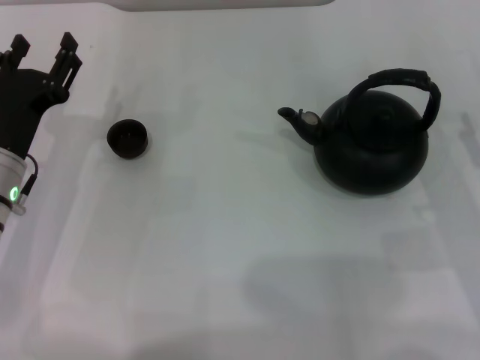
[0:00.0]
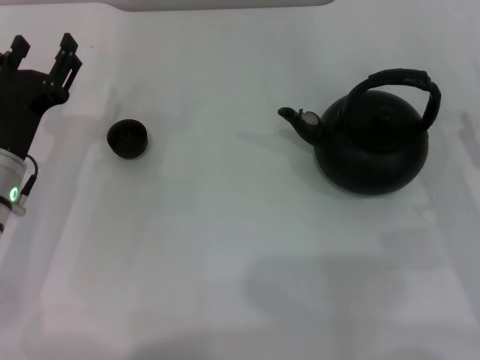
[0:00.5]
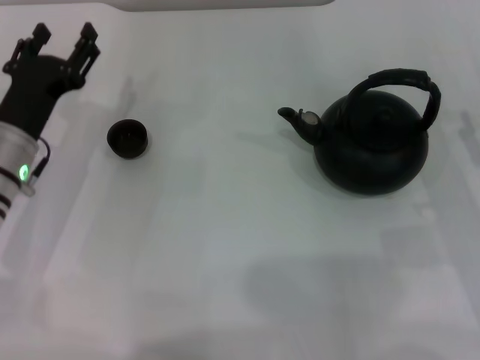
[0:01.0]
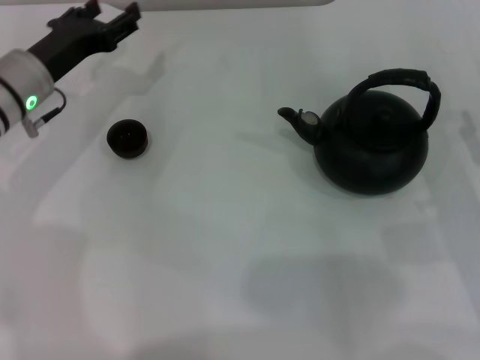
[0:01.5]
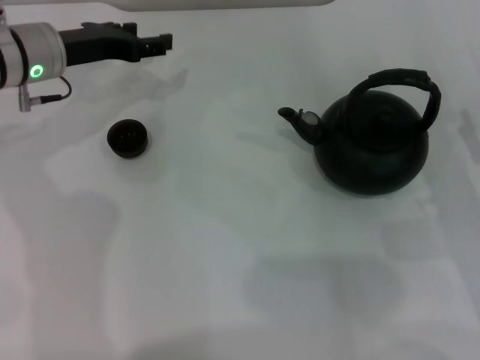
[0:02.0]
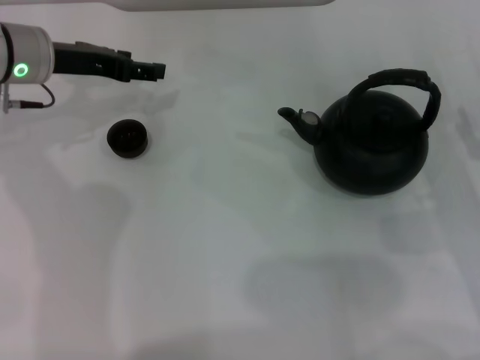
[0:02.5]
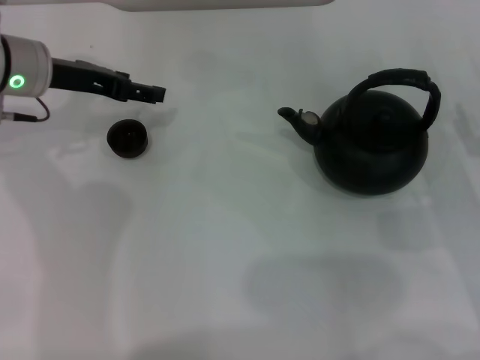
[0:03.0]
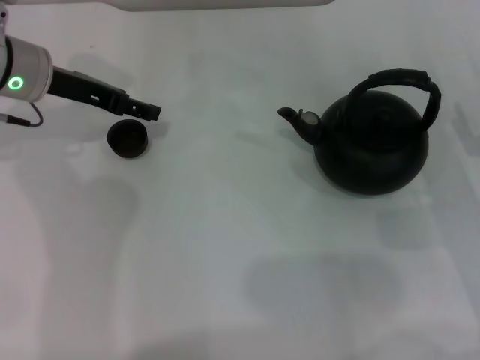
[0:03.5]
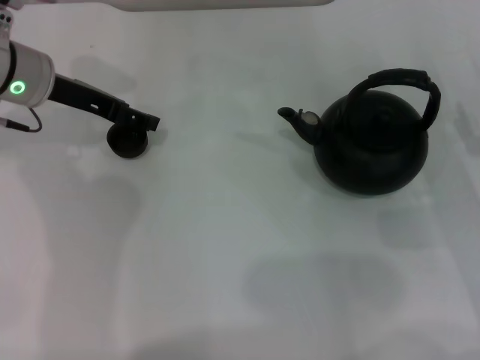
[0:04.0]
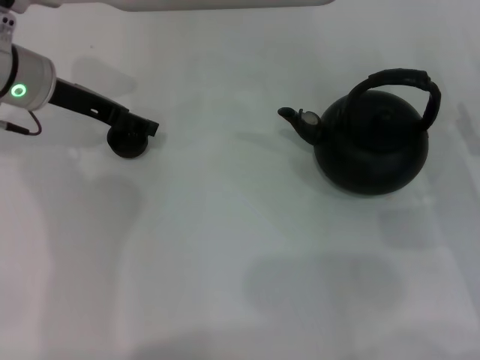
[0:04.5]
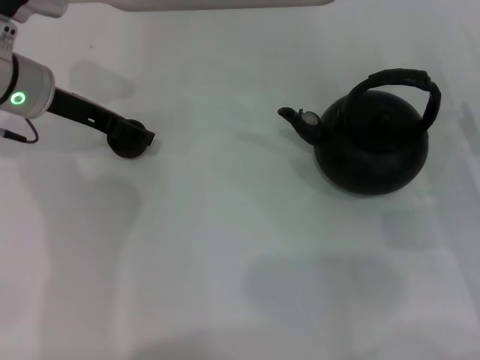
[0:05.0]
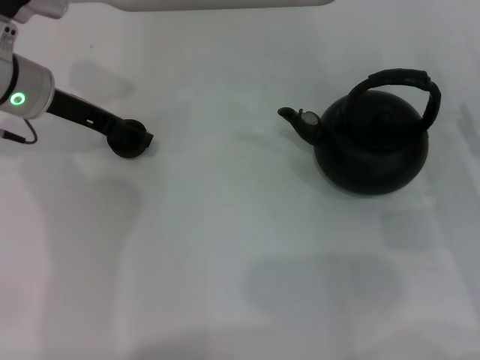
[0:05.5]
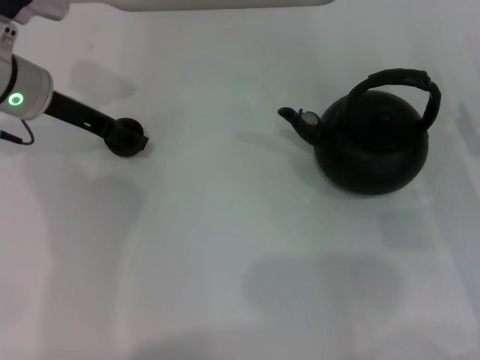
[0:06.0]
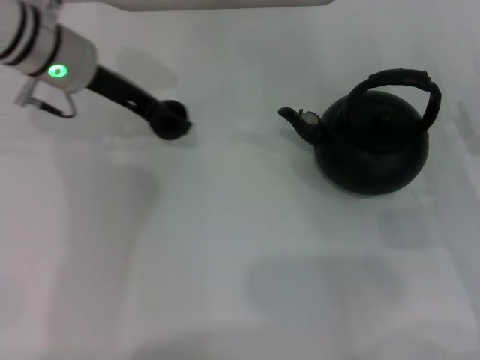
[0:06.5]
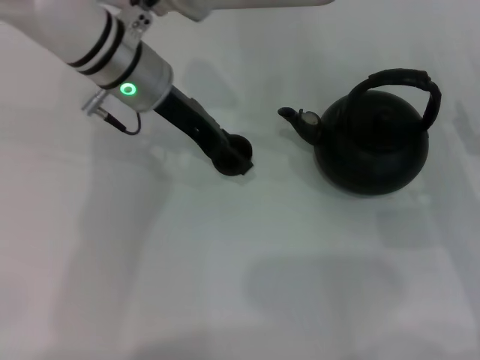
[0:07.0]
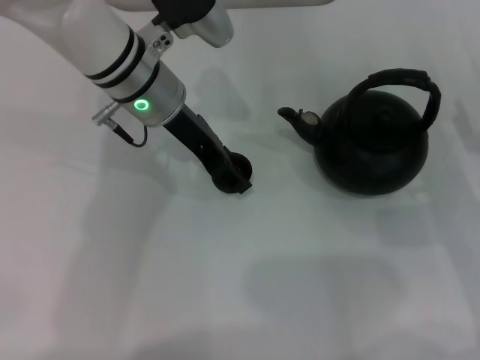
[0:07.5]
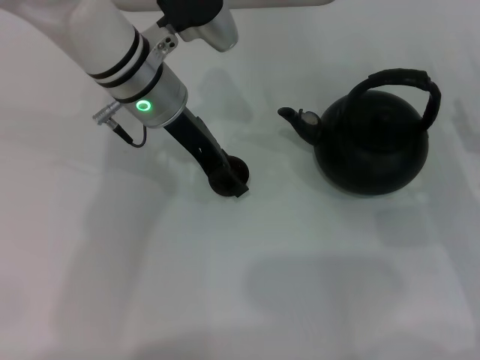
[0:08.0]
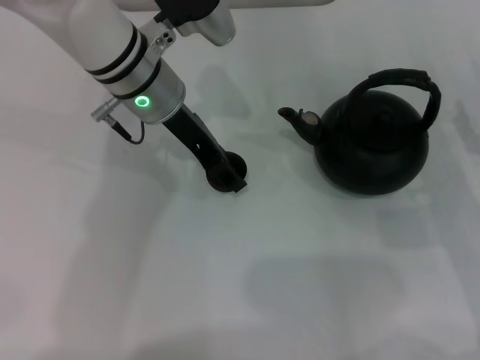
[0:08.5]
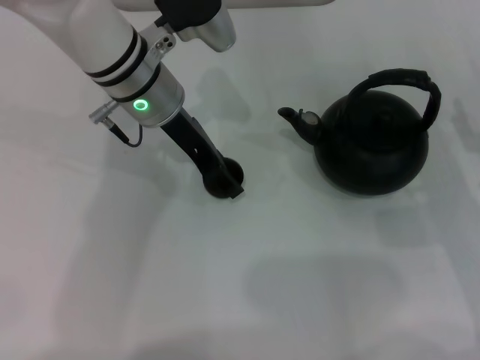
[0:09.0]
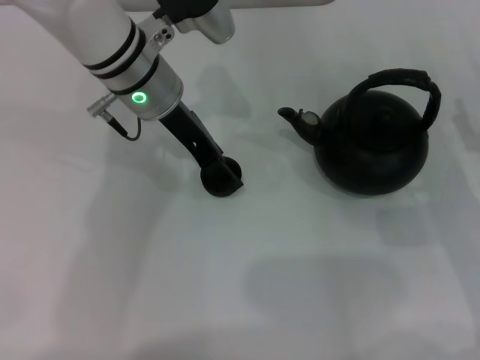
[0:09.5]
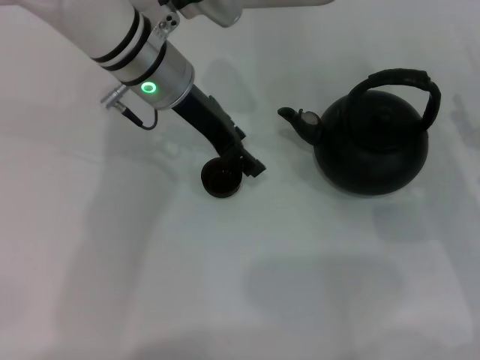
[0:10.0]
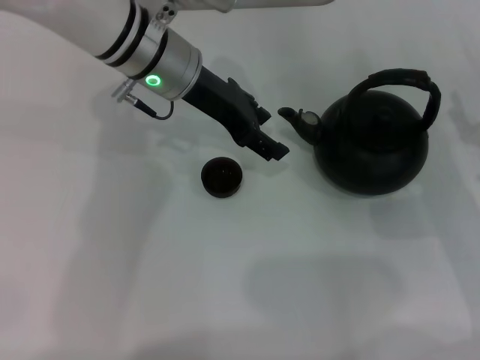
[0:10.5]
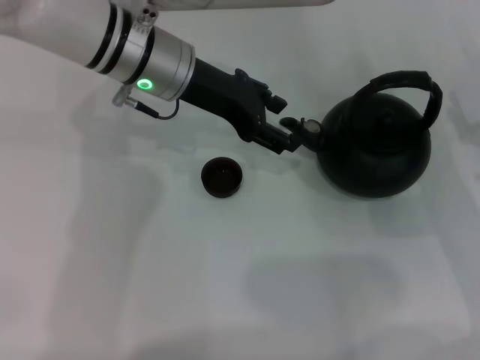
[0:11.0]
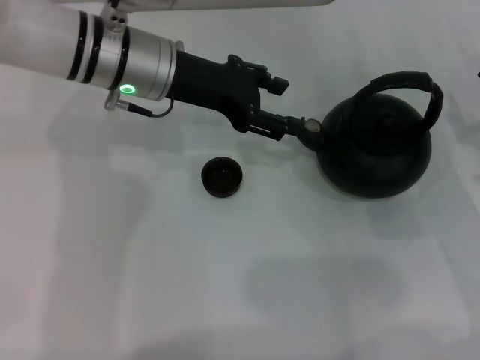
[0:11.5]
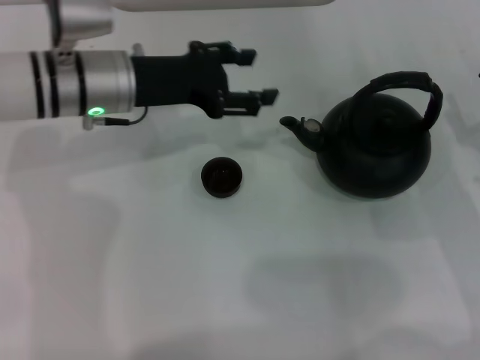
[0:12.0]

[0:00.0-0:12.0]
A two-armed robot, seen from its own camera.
Task of the whole recording: Grasp the handle of the teapot with one hand and pour tea into the teacup.
Step, 0:00.0 to 0:06.0: Pick up the teacup with the left gripper.
Step, 0:06.5 to 0:10.0: Place the teacup in the center of view with the left gripper.
0:00.0 to 0:02.0: The left gripper heads forward and upward, covering roughly 15 cm.
0:02.0 to 0:04.0: The left gripper opens.
0:04.0 to 0:06.0: The left gripper closes its fingers.
0:06.0 to 0:08.0: The left gripper moves to the right, roughly 15 cm, and closes up.
0:08.0 to 0:10.0: The left gripper opens.
0:10.0 to 0:12.0: The left gripper heads to the left, covering some 5 cm.

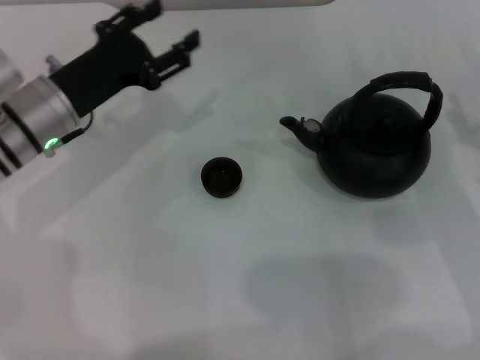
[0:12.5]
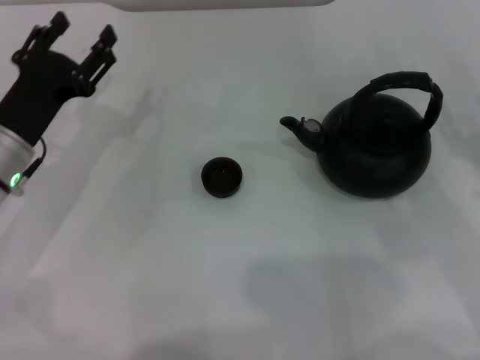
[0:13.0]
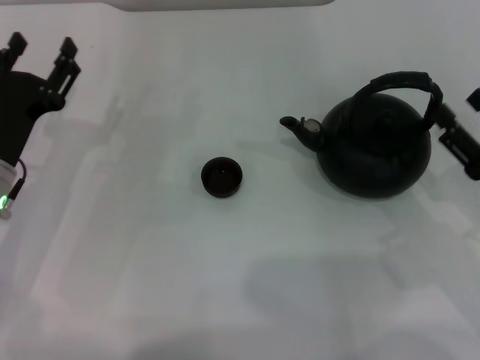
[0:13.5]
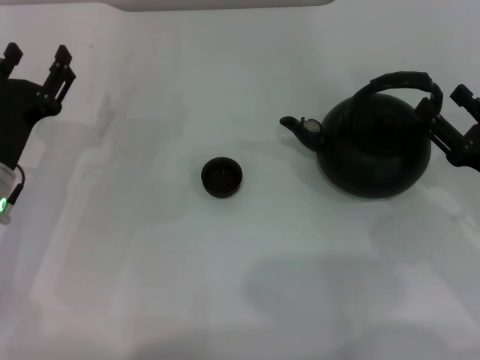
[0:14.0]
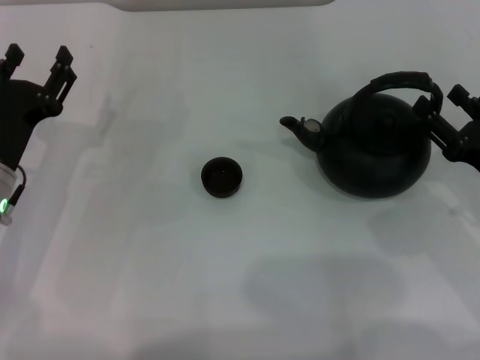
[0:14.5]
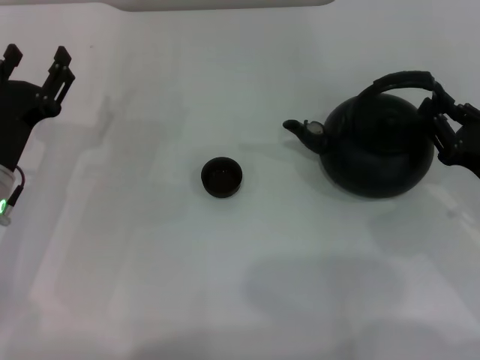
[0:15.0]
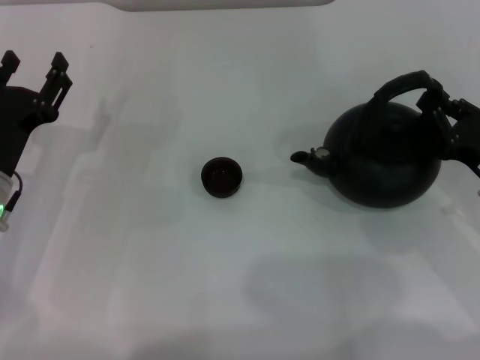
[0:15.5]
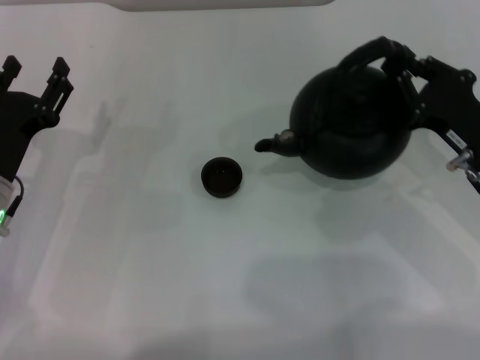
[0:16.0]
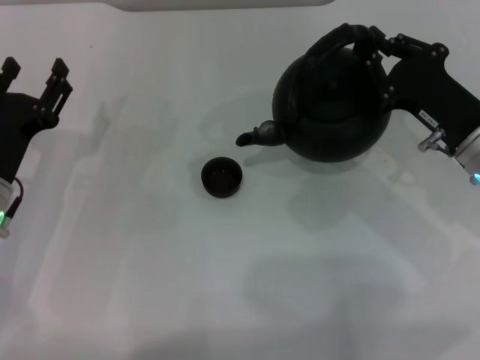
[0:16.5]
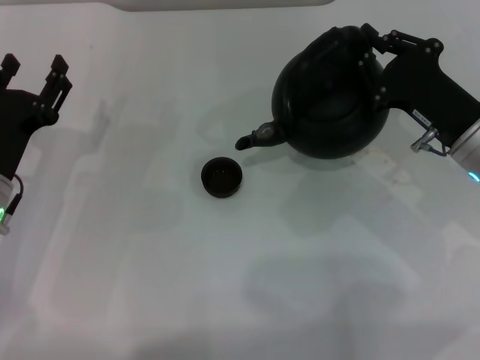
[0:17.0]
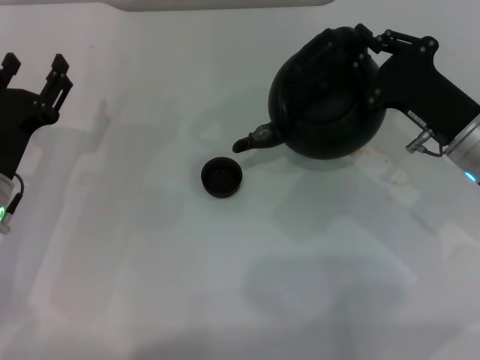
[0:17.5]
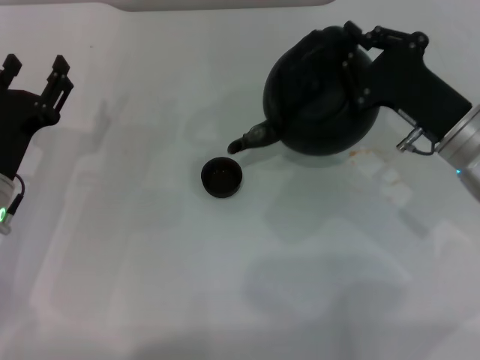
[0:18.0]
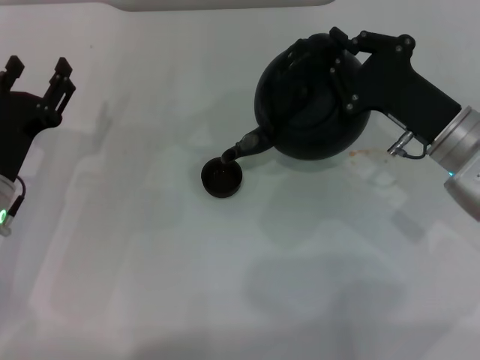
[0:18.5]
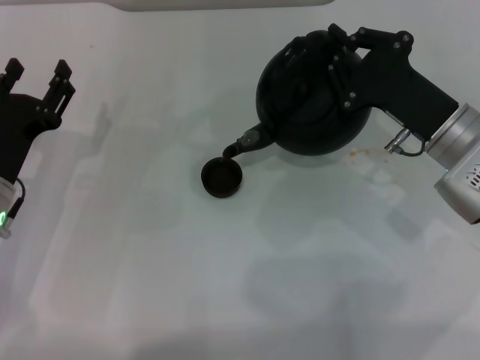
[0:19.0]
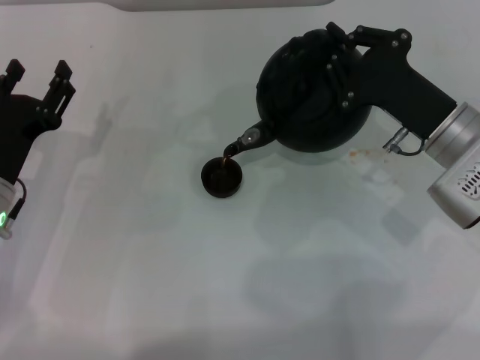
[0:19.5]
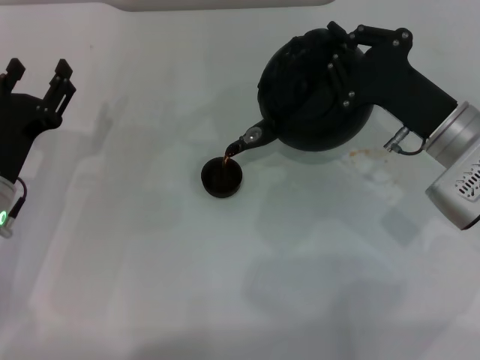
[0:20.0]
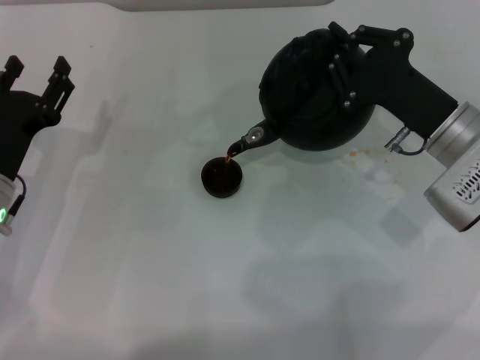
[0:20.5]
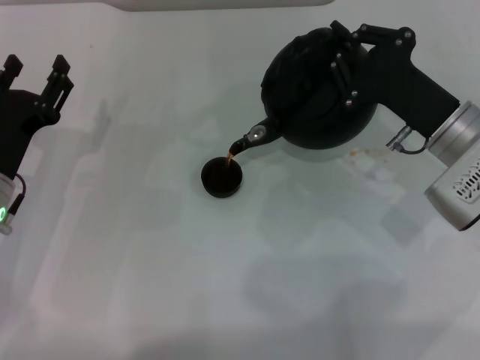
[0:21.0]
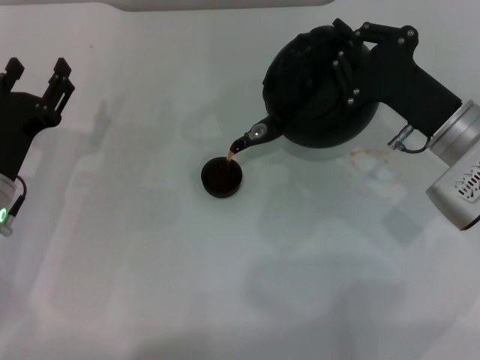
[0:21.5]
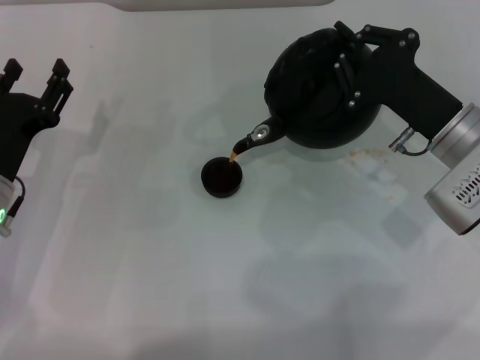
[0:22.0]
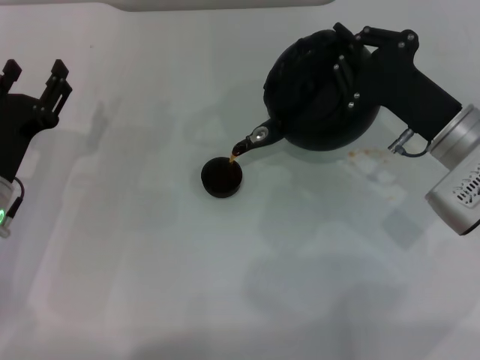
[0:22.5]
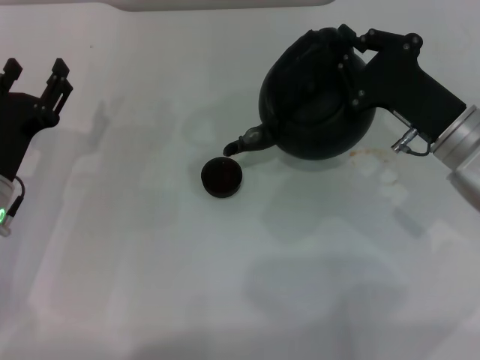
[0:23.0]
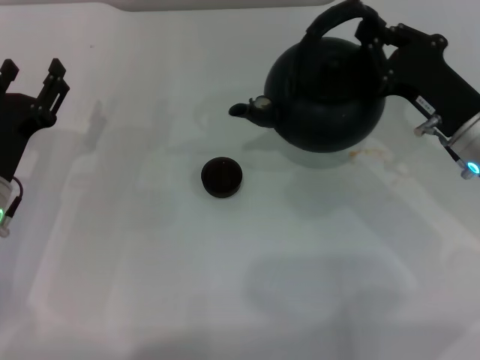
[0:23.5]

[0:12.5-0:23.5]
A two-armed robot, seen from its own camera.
Task of the whole recording: Grasp the handle of the teapot with one hand and pour tea into the teacup.
Step, 0:12.5 to 0:15.5: Pick up the teapot with the right gripper.
Step, 0:16.0 to 0:22.5: Pour tea into the teacup with the right gripper.
0:12.5 to 0:14.5: The left gripper is displaced backward by roughly 5 cm.
0:14.5 to 0:16.0: The right gripper ends up approximately 5 cm from where it was, and closes up.
0:16.0 to 0:18.0: The right gripper ends up about 5 cm from where it was.
0:18.0 to 0:20.0: The grippers stay close to where they were, moving slightly.
0:20.0 to 0:21.5: Both grippers stay put.

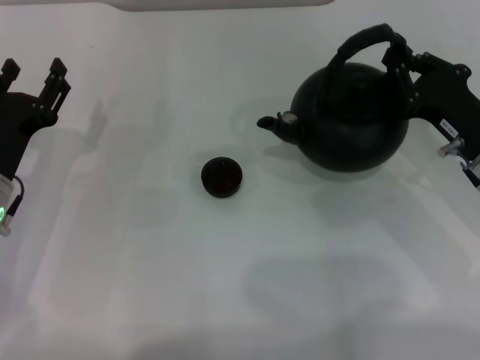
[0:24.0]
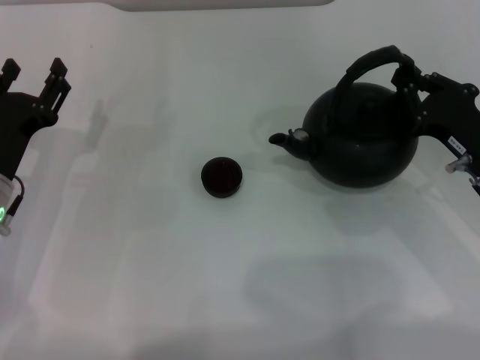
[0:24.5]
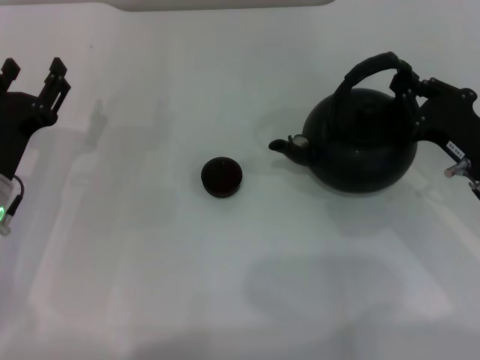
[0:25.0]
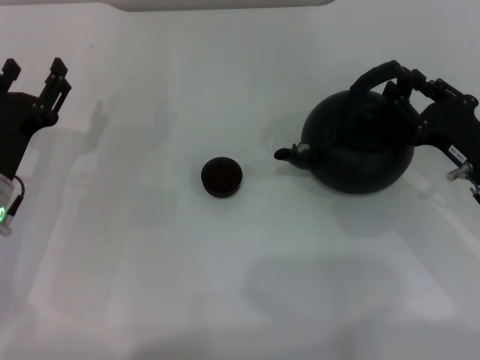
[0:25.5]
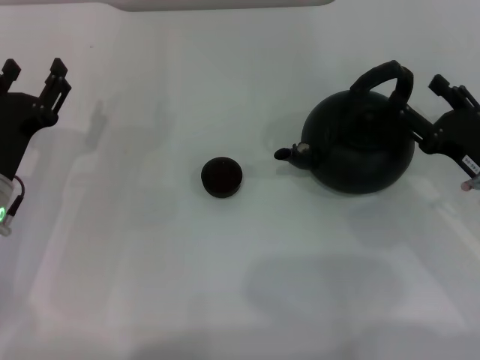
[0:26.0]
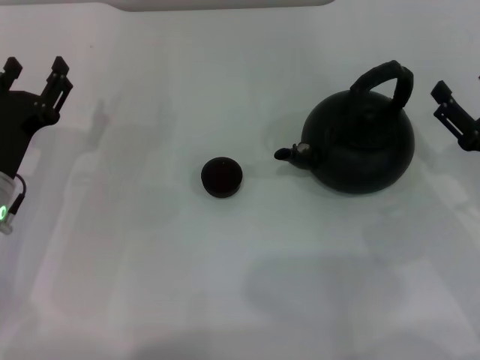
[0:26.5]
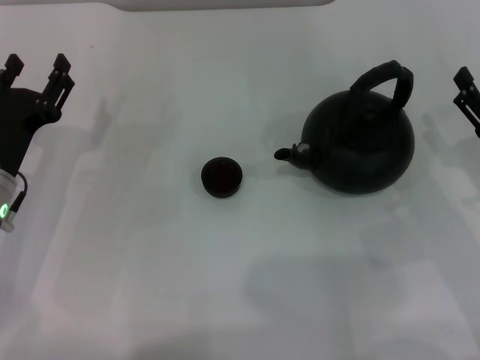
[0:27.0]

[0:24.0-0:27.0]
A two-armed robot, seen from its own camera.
Task of the whole recording: Grasp the handle of the teapot with one hand and pour tea into the teacup.
Step, 0:24.0 to 0:26.0: Put down the teapot with the right gripper.
0:24.0 to 0:25.5: The grippers move only a little.
0:25.5 to 0:27.0: The right gripper opens.
